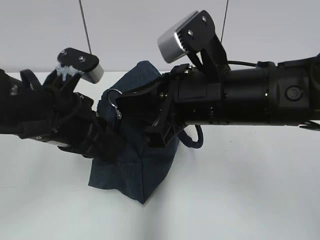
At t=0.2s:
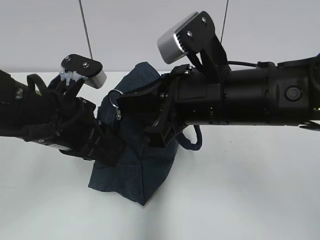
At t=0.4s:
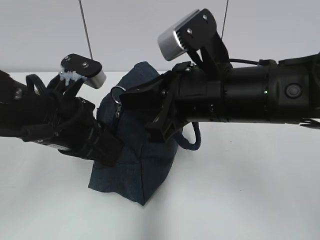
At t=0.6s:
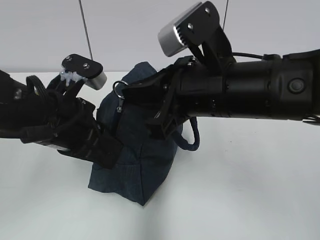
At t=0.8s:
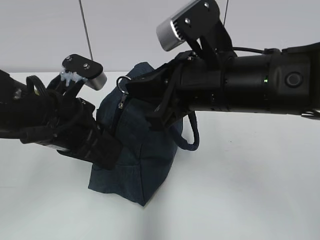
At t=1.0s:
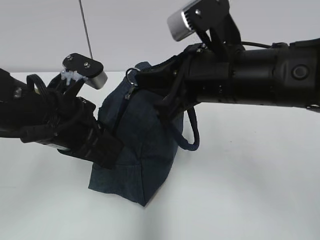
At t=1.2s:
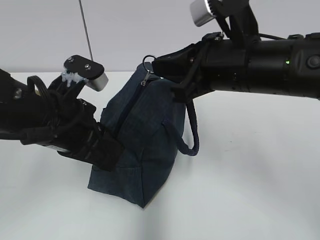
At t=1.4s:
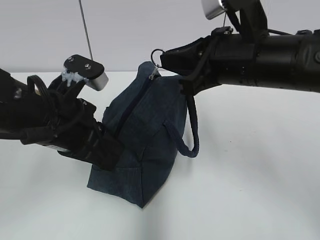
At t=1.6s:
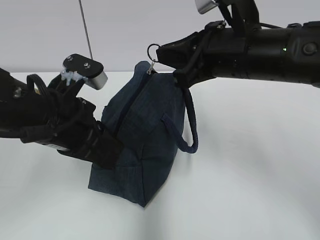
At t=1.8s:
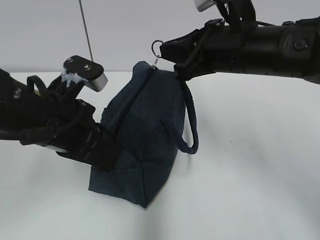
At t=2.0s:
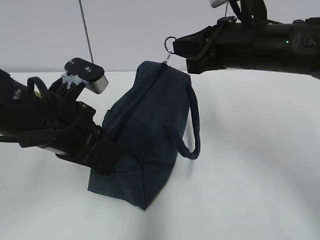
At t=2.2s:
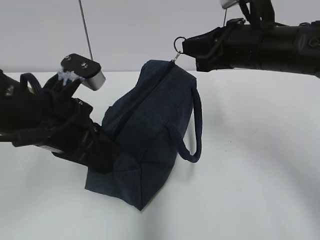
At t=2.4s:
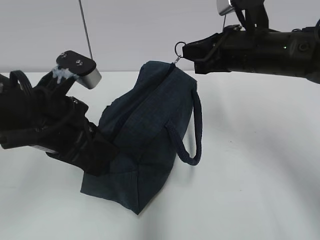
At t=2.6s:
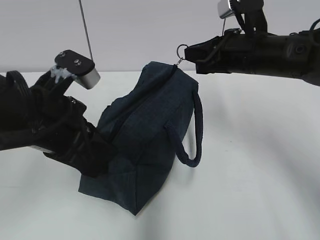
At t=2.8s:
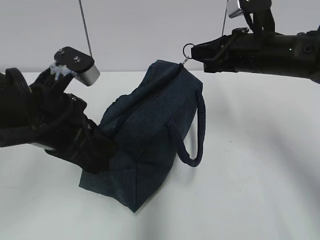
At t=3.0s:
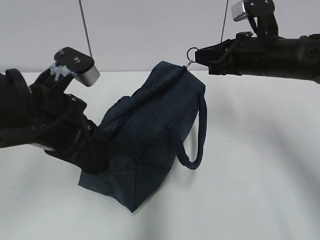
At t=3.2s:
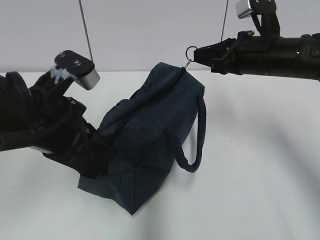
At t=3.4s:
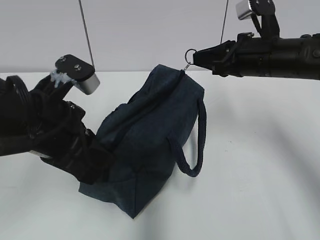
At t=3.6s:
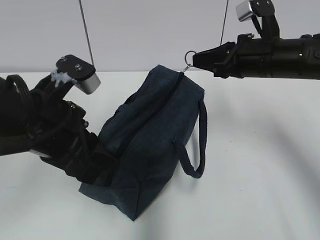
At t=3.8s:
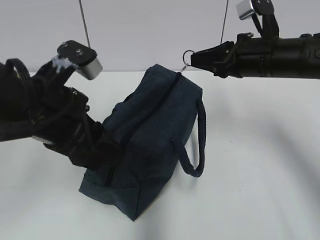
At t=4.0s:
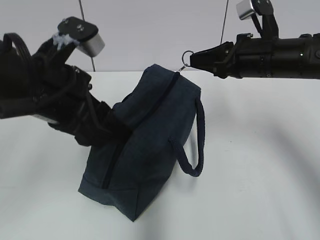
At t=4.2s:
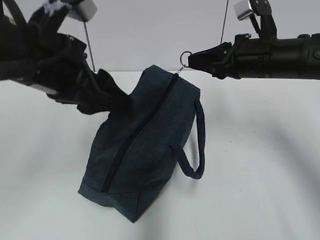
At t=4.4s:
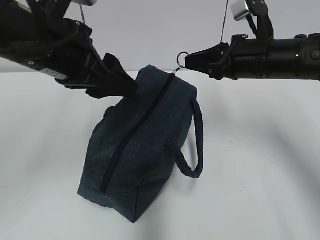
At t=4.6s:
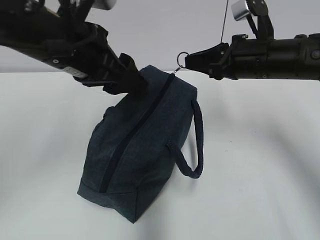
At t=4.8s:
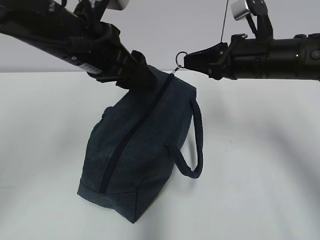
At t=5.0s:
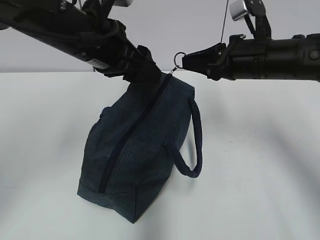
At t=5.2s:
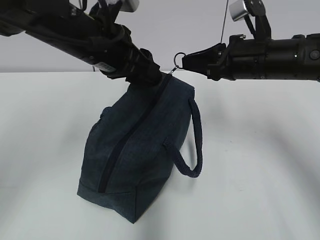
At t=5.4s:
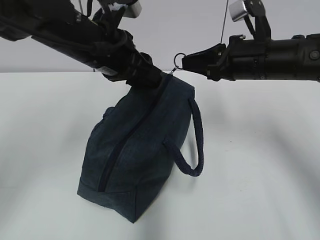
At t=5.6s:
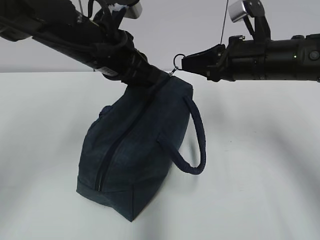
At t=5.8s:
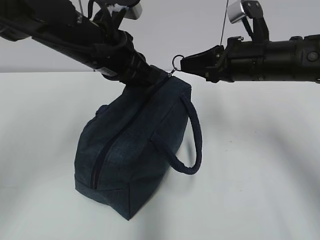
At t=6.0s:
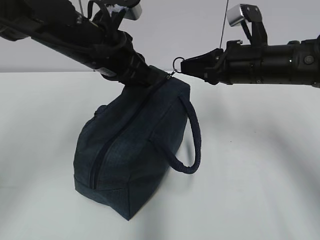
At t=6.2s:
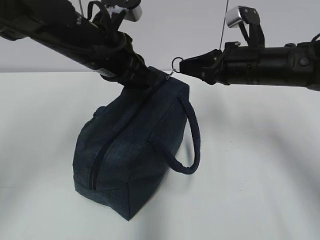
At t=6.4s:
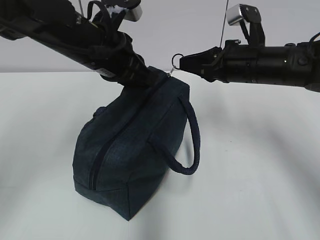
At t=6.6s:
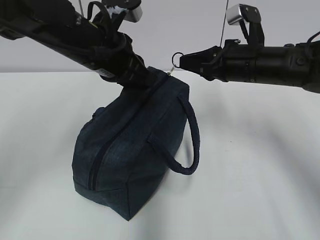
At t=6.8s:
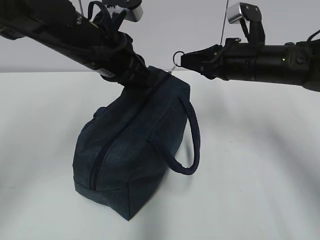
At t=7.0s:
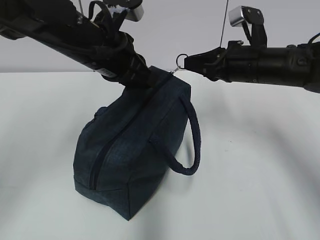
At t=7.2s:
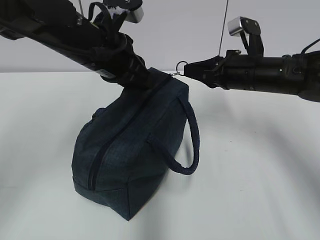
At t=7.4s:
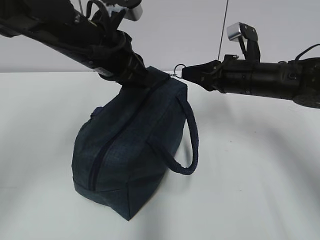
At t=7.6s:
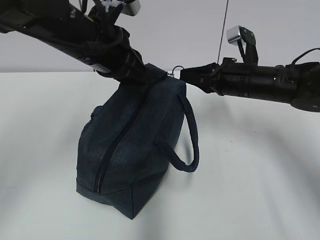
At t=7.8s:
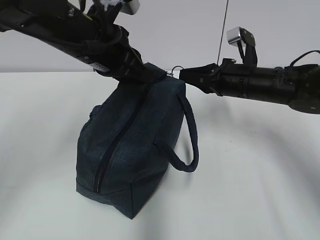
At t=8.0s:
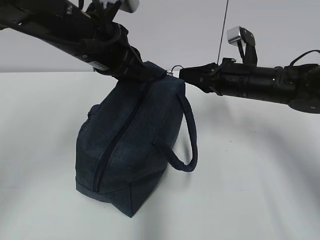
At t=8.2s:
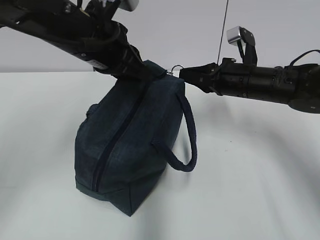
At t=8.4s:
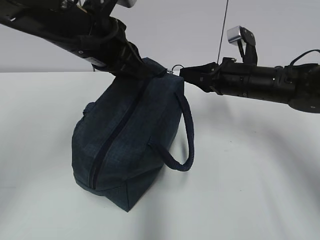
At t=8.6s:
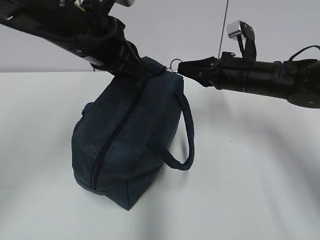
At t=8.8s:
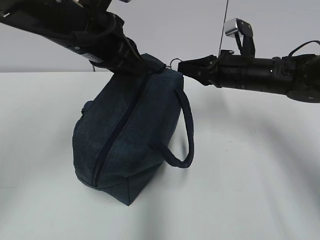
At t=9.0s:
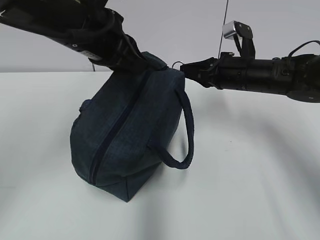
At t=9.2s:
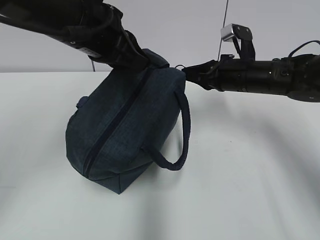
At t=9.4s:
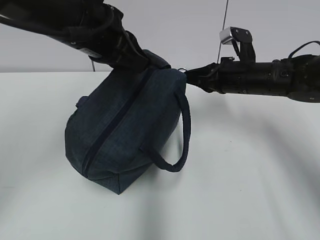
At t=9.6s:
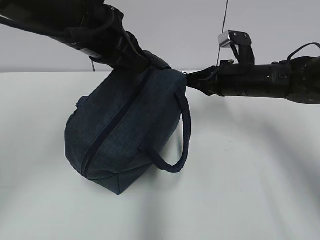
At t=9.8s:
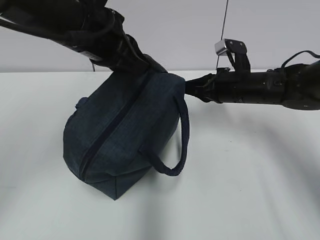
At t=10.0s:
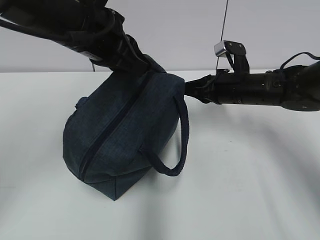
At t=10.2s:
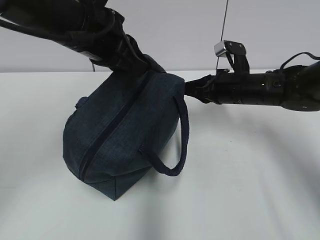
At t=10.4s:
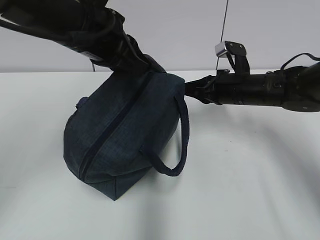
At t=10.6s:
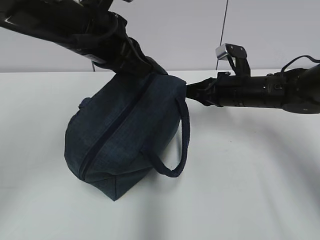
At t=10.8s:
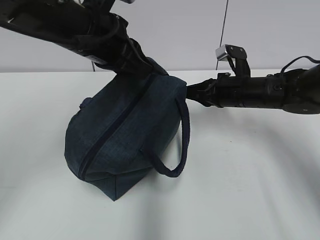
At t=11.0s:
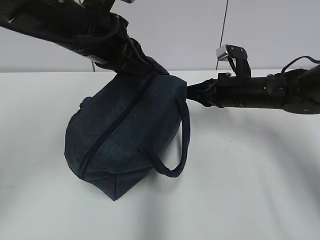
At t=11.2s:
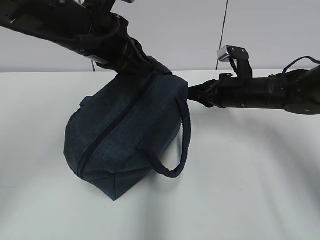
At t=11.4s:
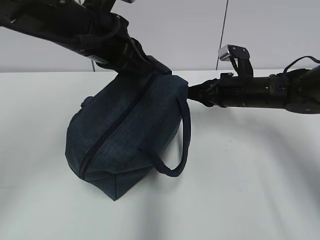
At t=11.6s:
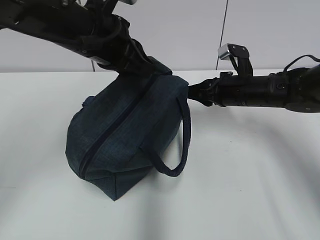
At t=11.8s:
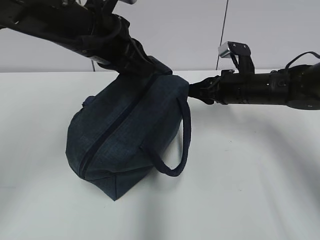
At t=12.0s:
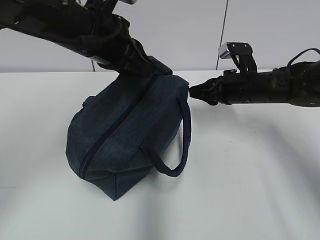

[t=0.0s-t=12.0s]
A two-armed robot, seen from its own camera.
Step, t=0.0s to t=11.8s: Pull the zipper with your right hand.
t=0.0s to t=1.6s: The right gripper moves forward, roughly 5 cm.
t=1.6s to t=3.0s: The right gripper goes approximately 10 cm forward and to the right.
t=3.0s to t=4.4s: The left gripper heads upward, covering roughly 5 cm, and opens up.
t=4.4s to t=6.0s: The left gripper goes roughly 10 cm forward, and closes up.
t=6.0s to t=7.6s: The right gripper travels downward by roughly 5 cm.
t=7.6s to t=10.4s: The grippers make only small movements.
t=10.4s to t=12.0s: The right gripper opens.

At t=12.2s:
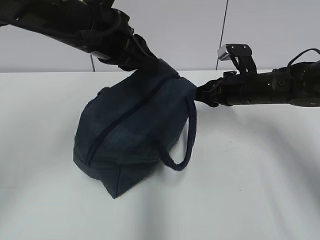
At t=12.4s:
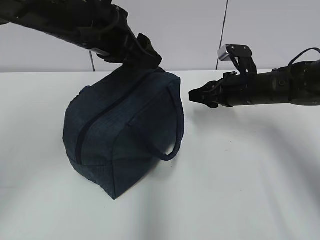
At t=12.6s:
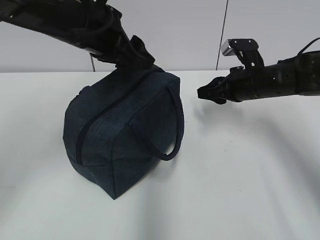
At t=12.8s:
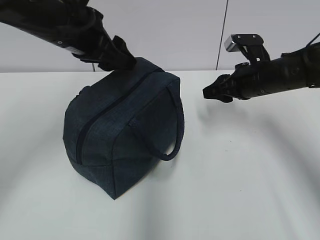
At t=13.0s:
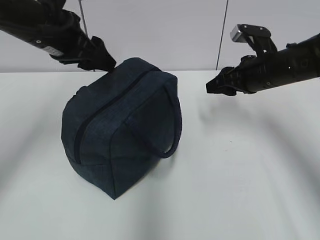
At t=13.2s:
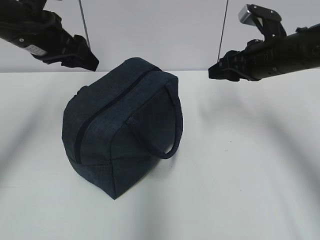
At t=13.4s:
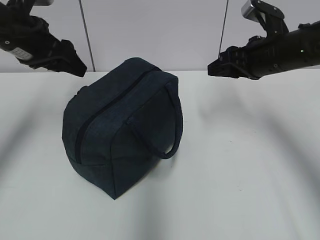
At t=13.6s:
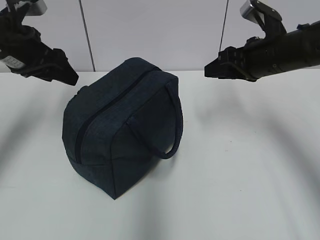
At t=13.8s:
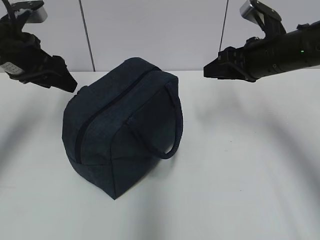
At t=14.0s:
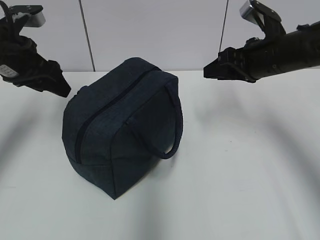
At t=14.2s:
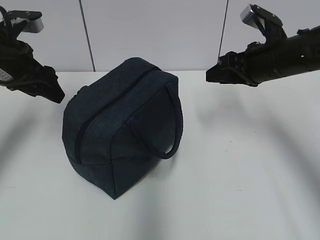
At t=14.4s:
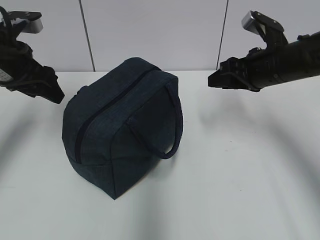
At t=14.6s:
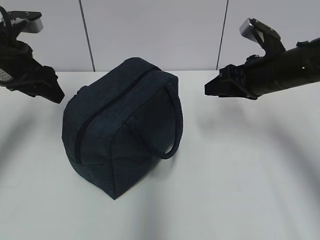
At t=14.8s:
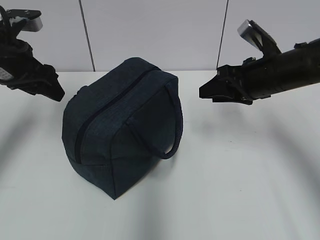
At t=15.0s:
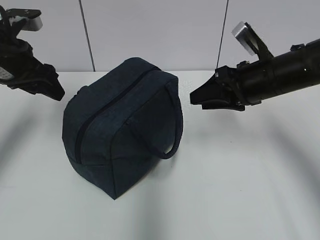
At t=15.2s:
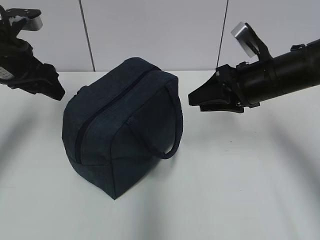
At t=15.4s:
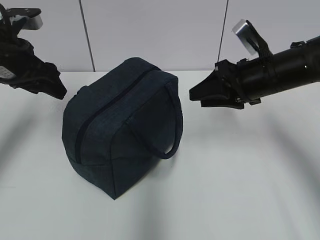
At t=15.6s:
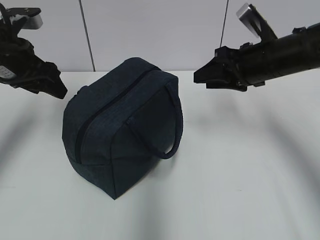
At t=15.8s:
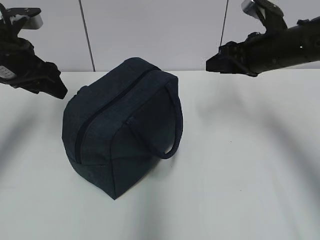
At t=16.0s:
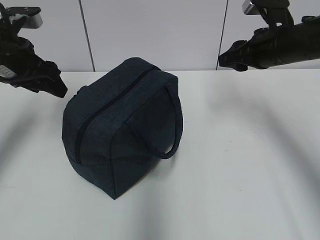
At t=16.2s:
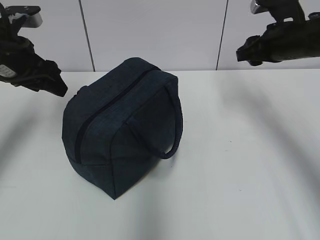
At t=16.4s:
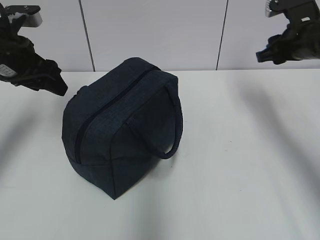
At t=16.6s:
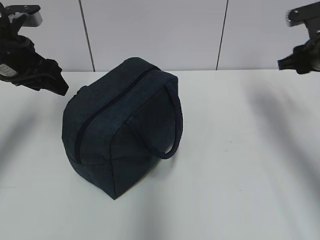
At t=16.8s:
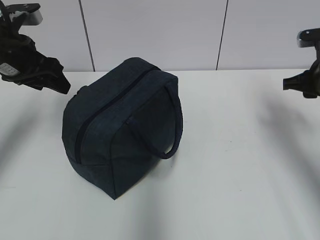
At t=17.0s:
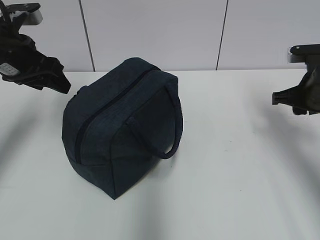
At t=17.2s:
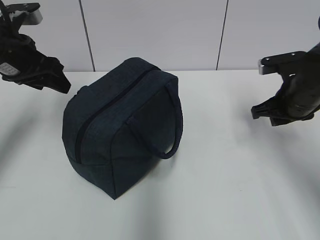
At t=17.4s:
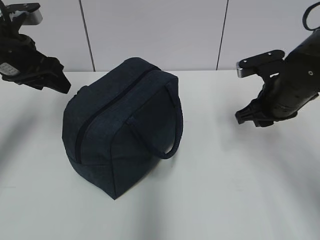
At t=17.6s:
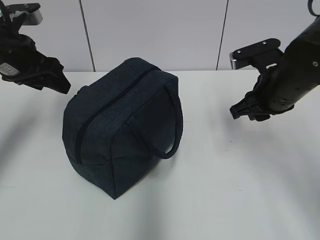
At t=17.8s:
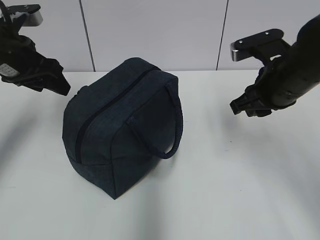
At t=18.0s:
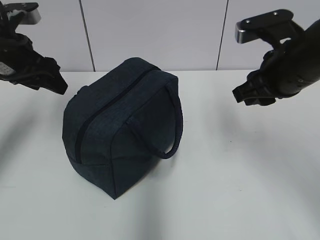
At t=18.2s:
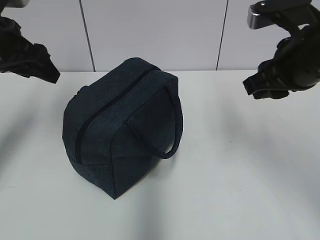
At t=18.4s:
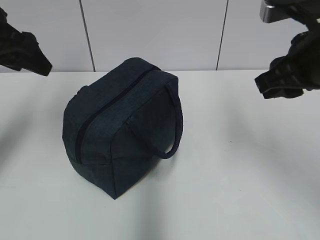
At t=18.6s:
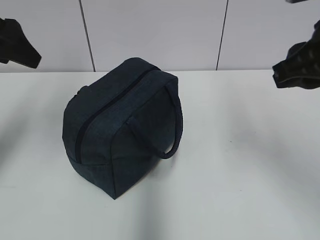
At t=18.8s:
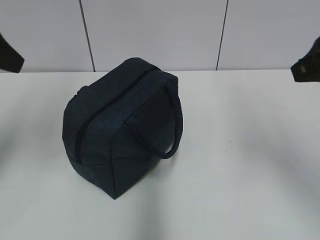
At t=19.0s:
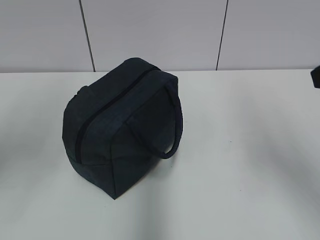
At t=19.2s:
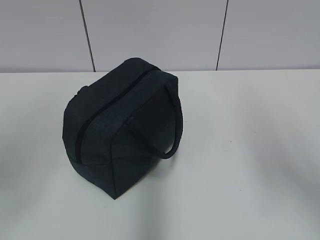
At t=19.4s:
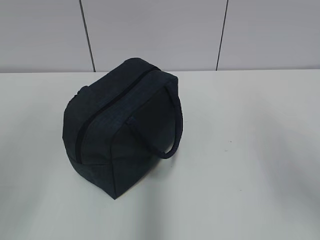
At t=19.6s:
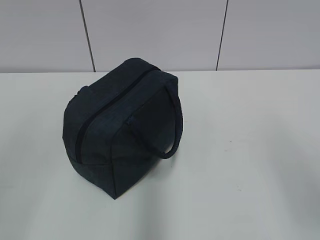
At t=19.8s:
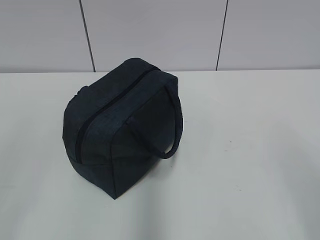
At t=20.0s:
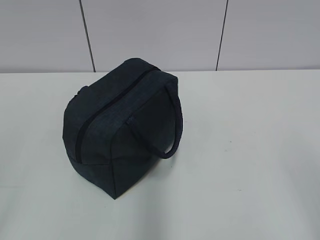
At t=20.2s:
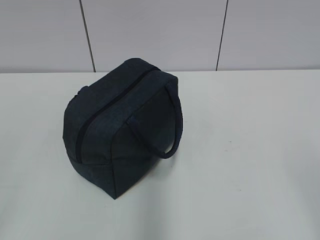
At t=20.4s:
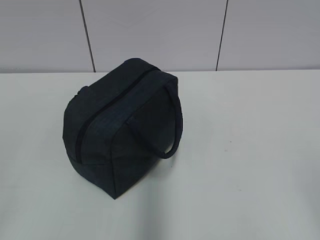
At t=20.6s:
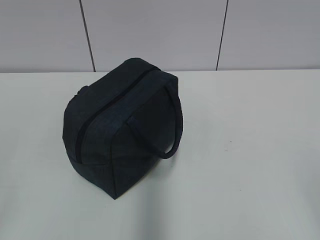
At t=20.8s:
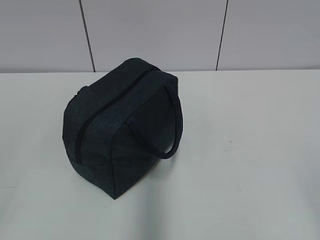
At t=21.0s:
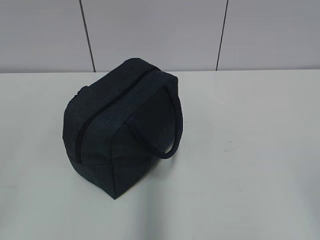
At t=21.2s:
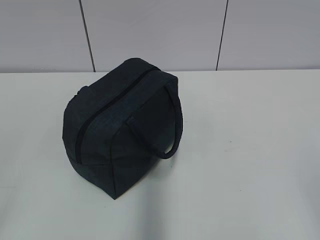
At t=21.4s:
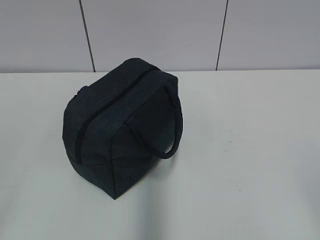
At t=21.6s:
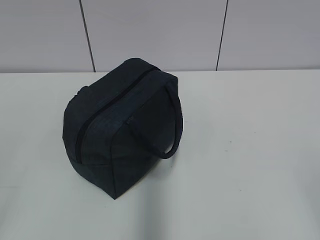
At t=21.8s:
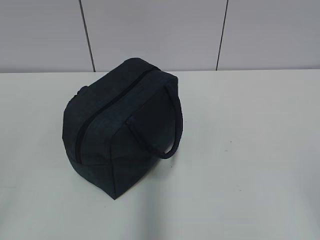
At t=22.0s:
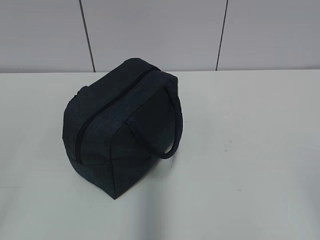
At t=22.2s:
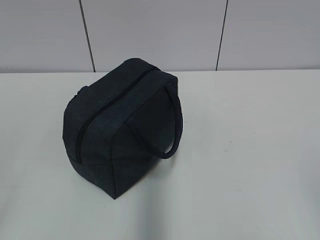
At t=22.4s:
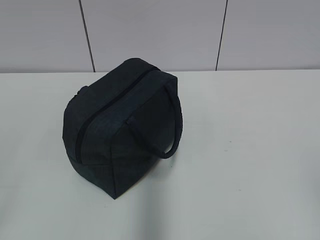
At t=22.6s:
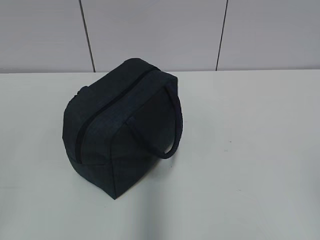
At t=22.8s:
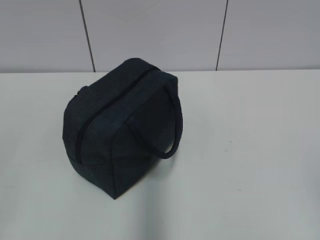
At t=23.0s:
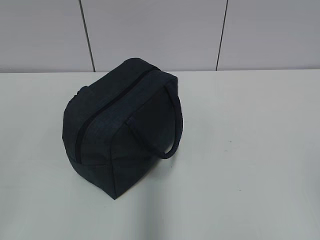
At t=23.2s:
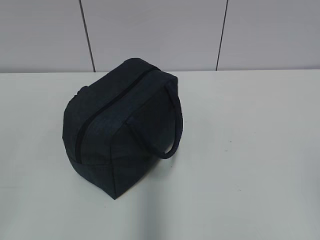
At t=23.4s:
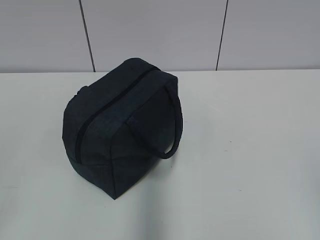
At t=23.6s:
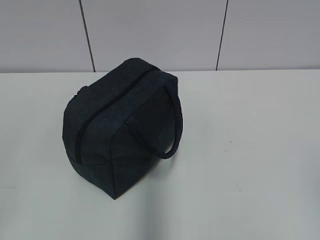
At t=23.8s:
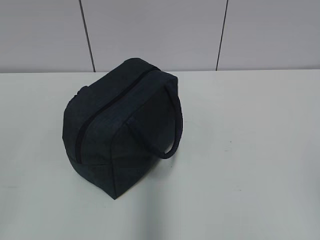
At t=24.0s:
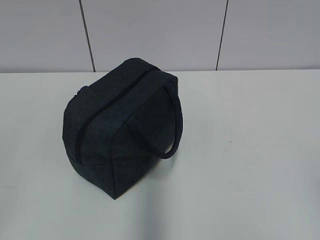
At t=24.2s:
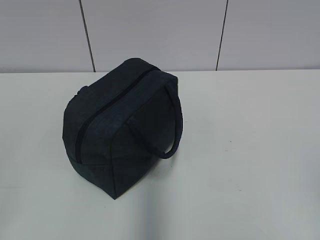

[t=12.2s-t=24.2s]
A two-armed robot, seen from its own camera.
t=12.2s to t=13.8s: The left gripper heads to the left, covering roughly 15 cm, and opens. The right gripper goes approximately 10 cm upward.
t=15.2s to t=16.6s: The right gripper shifts roughly 10 cm to the right.
t=16.6s to t=18.2s: The right gripper is displaced to the left, backward and upward by some 15 cm.
t=18.2s to t=19.8s: The grippers both shift backward by some 30 cm.
t=22.6s to t=24.2s: Neither gripper changes place.
